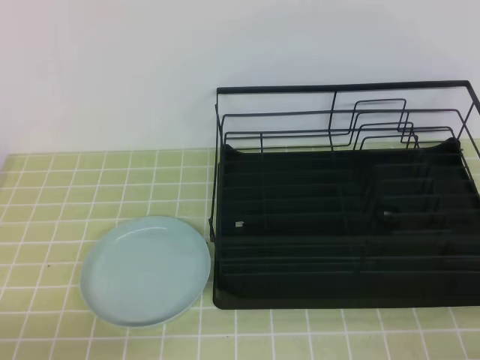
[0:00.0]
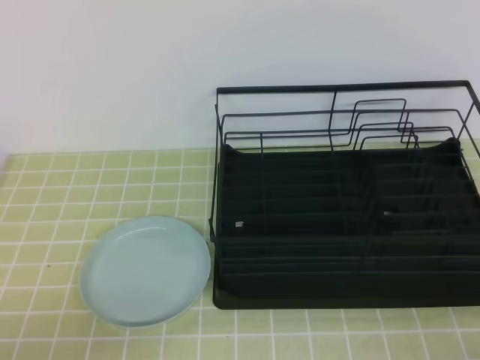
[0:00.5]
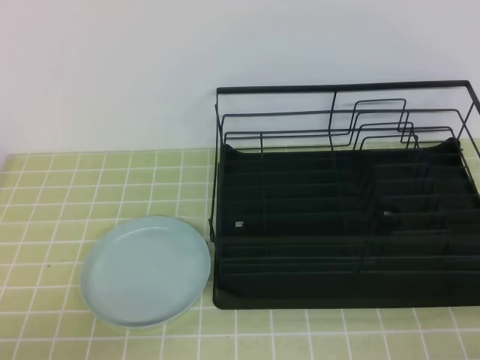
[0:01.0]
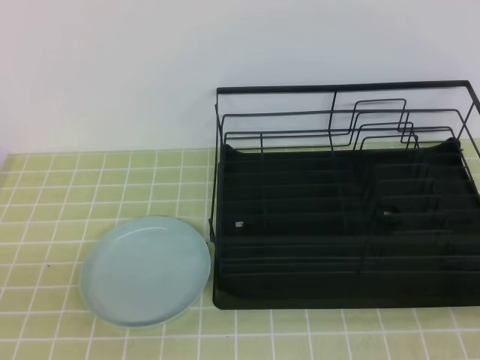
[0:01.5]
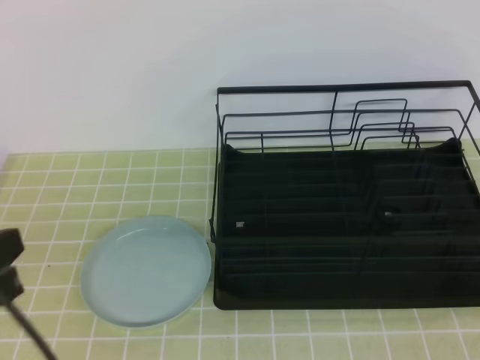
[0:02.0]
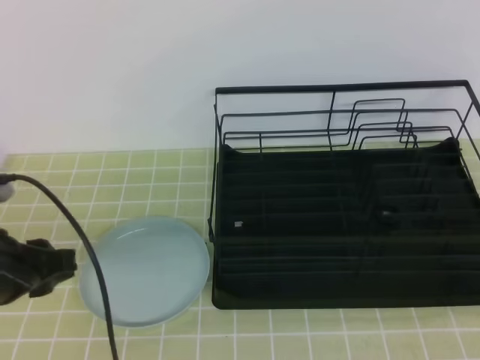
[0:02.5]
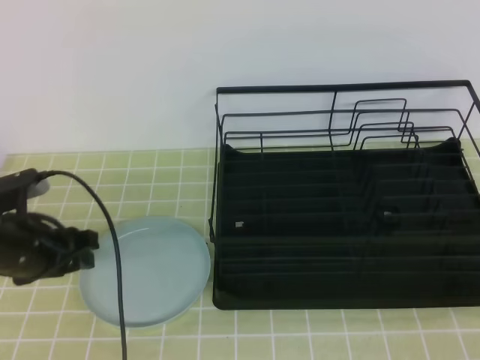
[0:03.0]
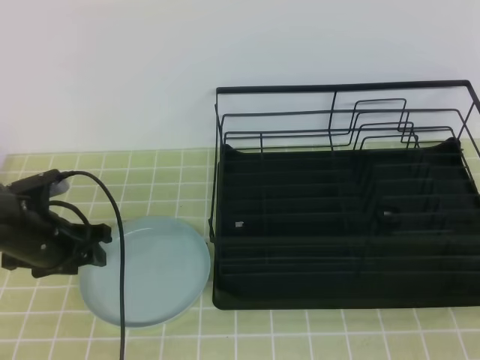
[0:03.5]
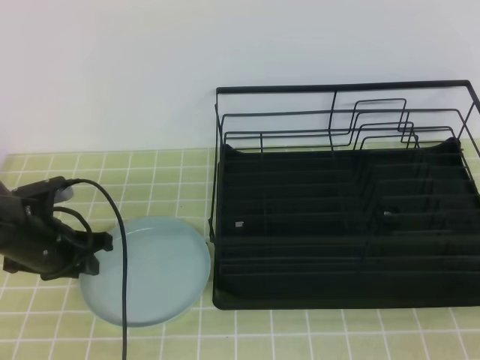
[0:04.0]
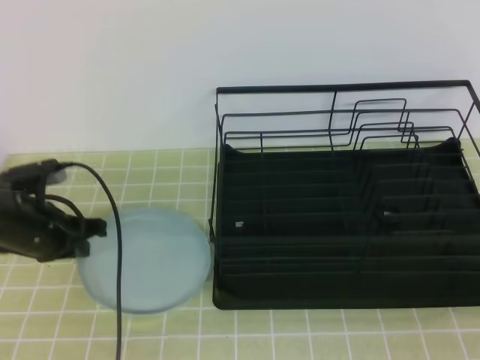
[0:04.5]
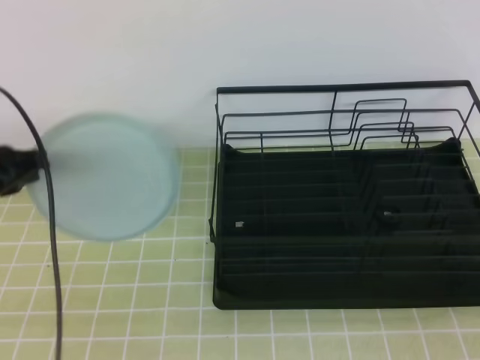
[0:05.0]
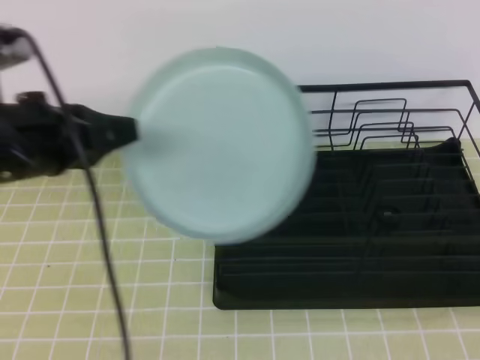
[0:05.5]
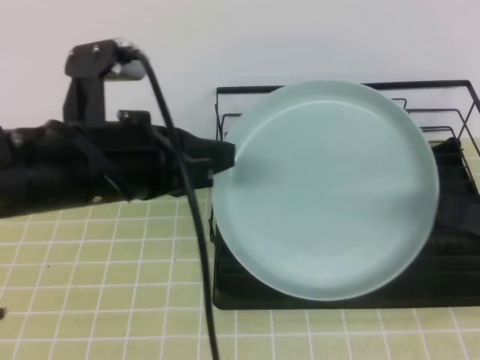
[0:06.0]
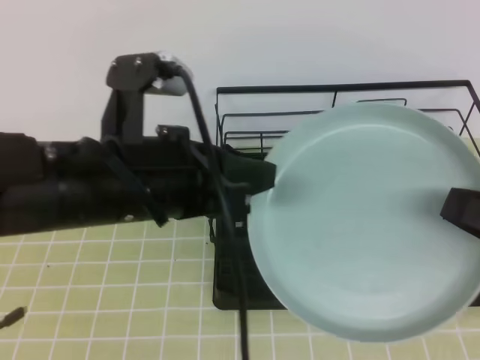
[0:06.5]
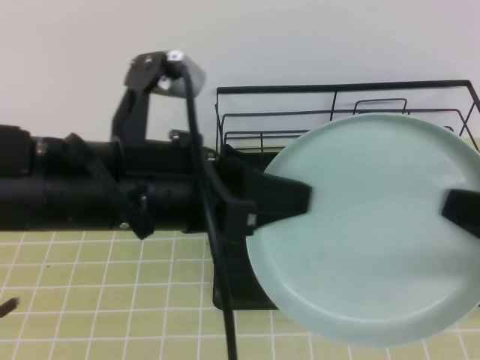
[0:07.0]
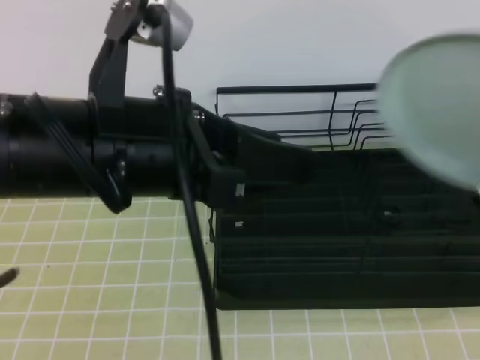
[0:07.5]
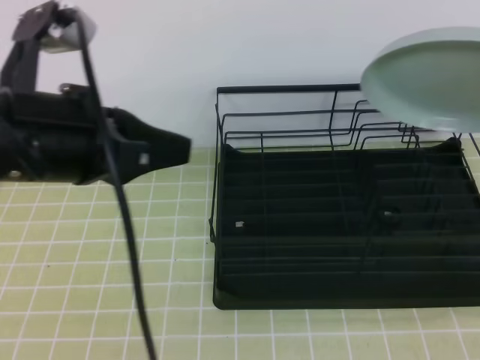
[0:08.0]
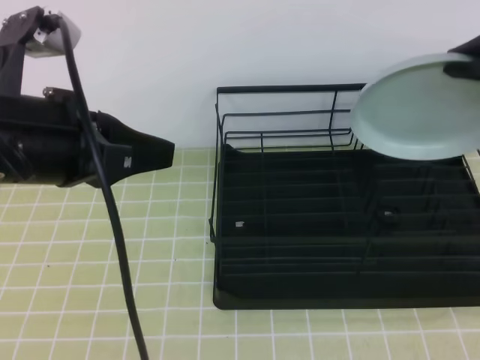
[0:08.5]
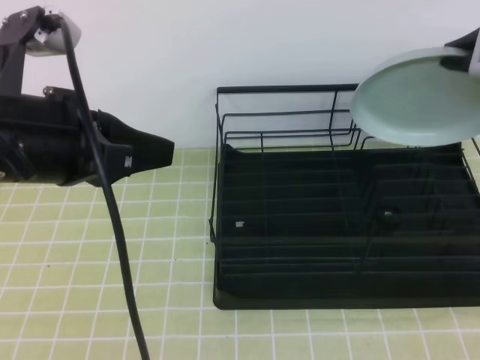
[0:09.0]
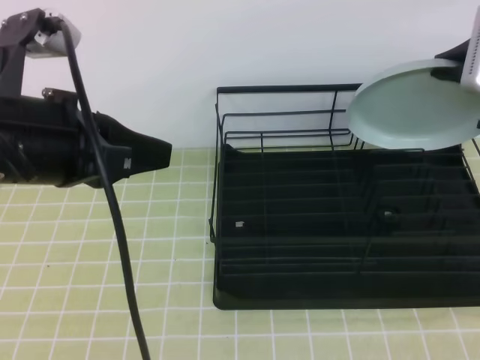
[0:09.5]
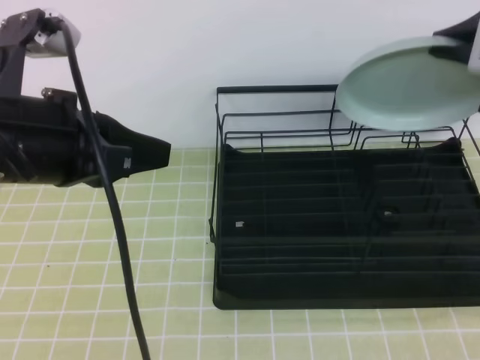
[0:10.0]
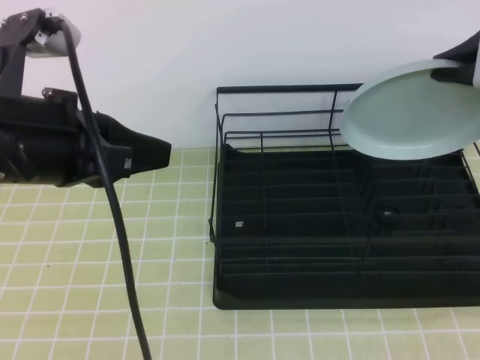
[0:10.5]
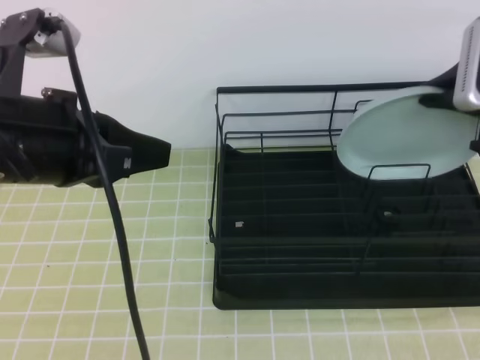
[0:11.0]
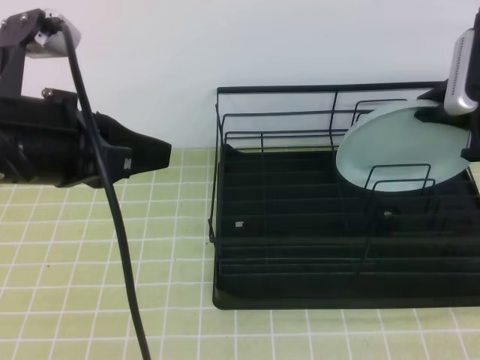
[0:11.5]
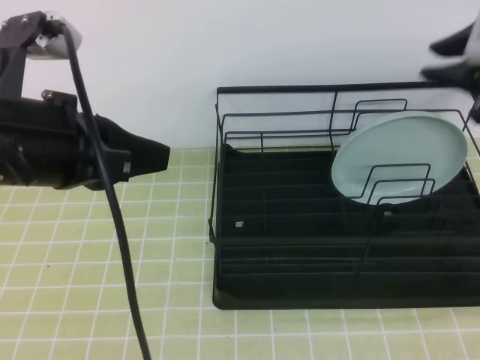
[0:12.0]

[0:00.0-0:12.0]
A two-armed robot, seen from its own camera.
Step, 0:00.0 to 0:03.0: Left grab the green plate.
Step, 0:03.5 to 0:05.5: Right receive the plate.
Step, 0:06.0 to 0:09.5: Right place it at the back of the shelf.
0:00.0 to 0:02.0: The left gripper is displaced upward and forward by some 15 cm. Meanwhile the right gripper heads upward, covering about 15 cm.
0:02.0 to 0:04.0: The left gripper travels forward and downward by roughly 25 cm, and opens and closes again.
0:04.0 to 0:06.0: The right gripper travels forward by about 10 cm, and opens up, while the left gripper shifts about 25 cm upward, to the right and backward.
0:06.0 to 0:08.0: The right gripper shifts roughly 15 cm forward and upward, and closes. The left gripper opens and closes again.
0:08.0 to 0:10.0: The right gripper travels forward by about 10 cm.
0:10.0 to 0:12.0: The right gripper opens up.

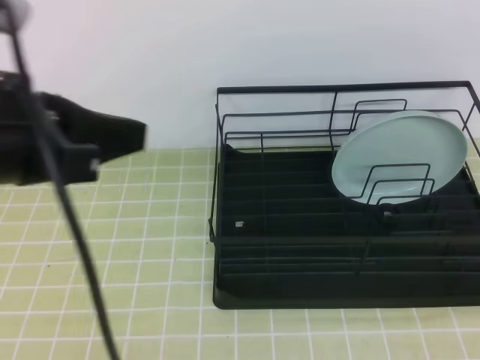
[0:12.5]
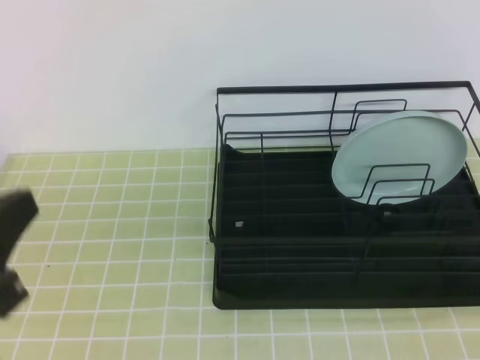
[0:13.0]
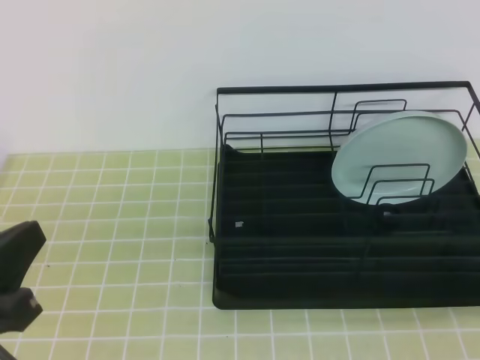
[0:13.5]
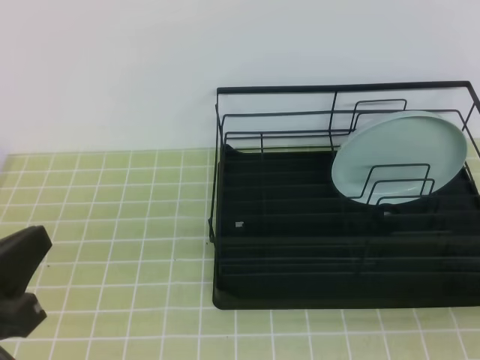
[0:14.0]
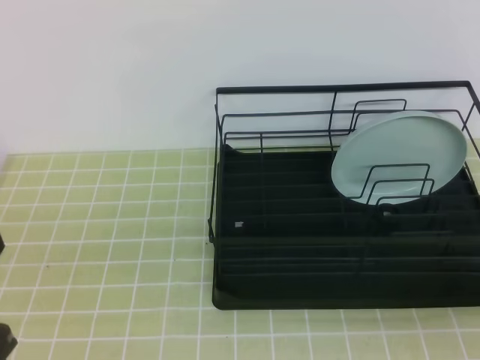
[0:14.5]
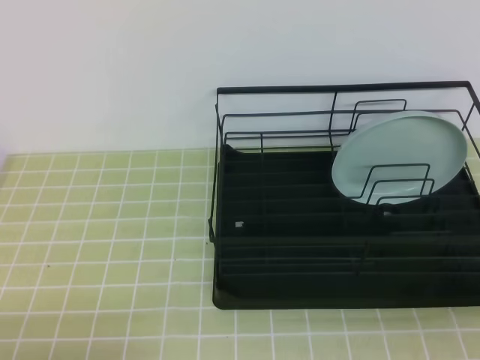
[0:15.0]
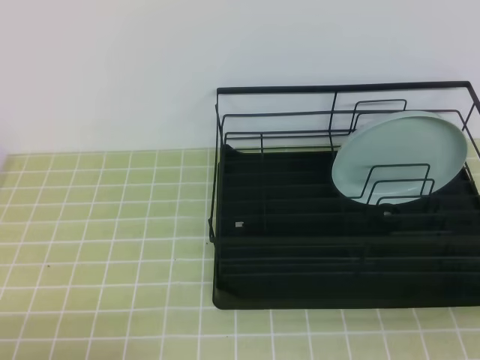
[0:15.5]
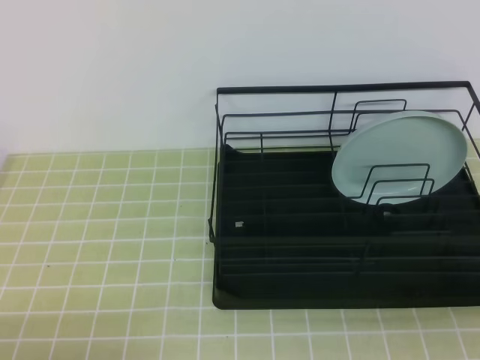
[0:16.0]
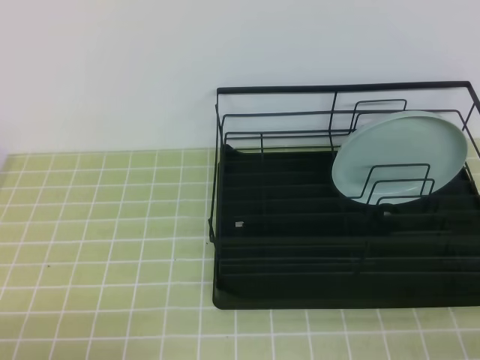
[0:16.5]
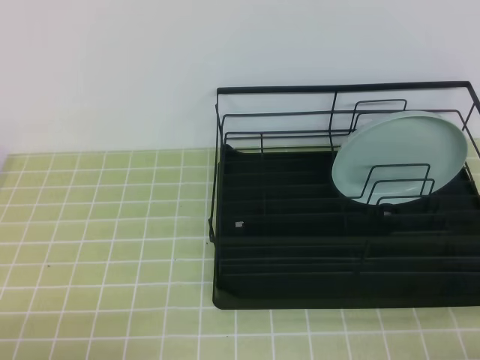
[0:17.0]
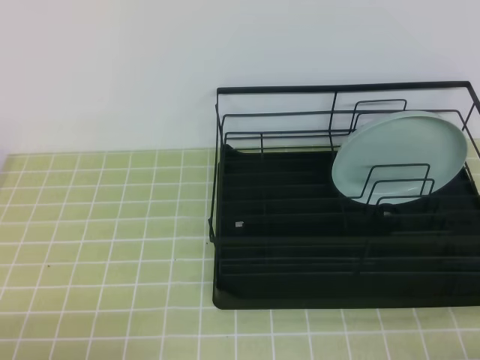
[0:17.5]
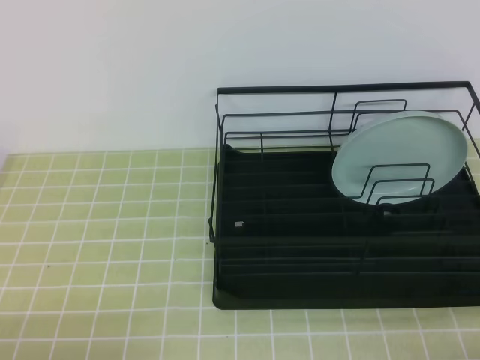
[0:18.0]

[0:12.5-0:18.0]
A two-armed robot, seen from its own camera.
0:12.5 to 0:14.5: The left gripper is displaced downward, backward and to the left by approximately 15 cm. The right gripper moves downward and backward, some 30 cm.
0:14.5 to 0:16.0: The left gripper travels downward by some 15 cm.
